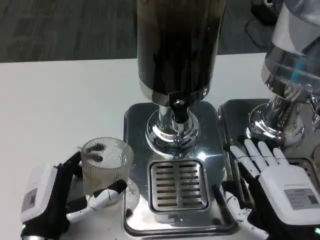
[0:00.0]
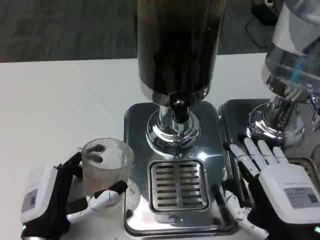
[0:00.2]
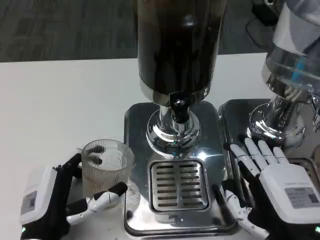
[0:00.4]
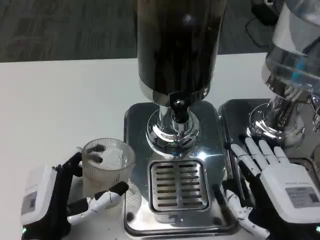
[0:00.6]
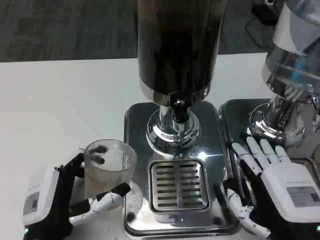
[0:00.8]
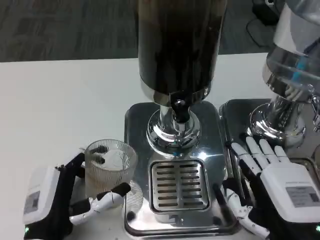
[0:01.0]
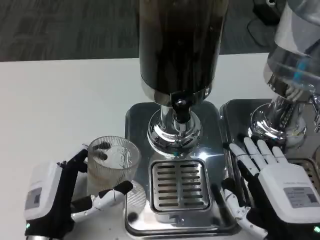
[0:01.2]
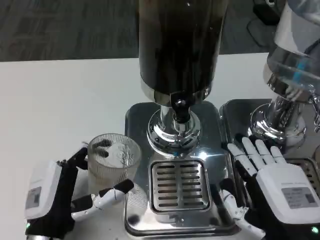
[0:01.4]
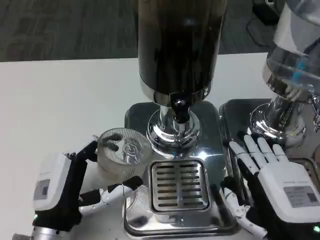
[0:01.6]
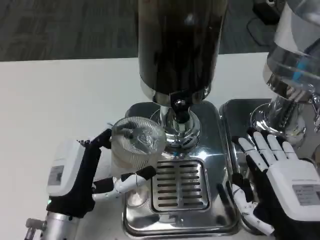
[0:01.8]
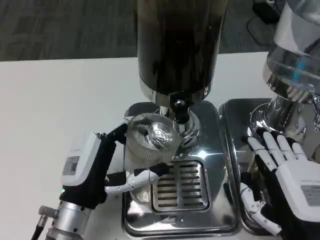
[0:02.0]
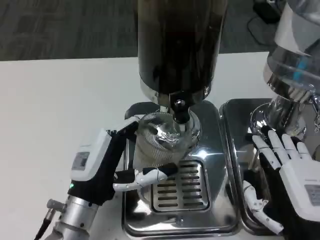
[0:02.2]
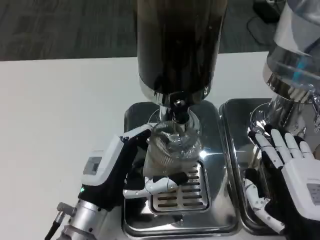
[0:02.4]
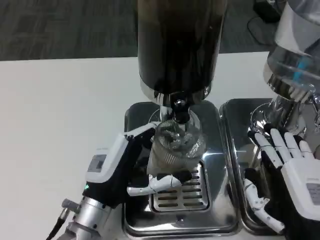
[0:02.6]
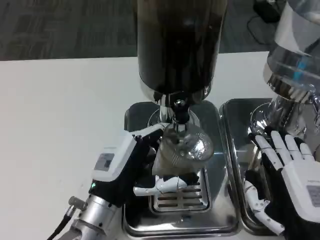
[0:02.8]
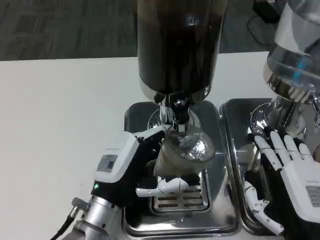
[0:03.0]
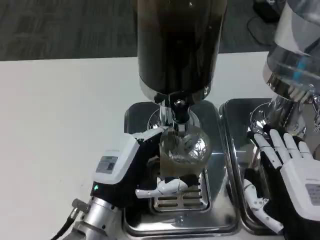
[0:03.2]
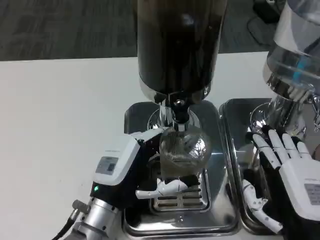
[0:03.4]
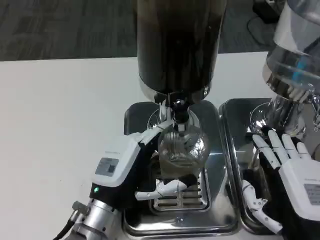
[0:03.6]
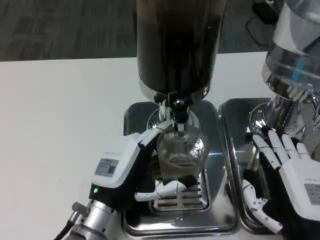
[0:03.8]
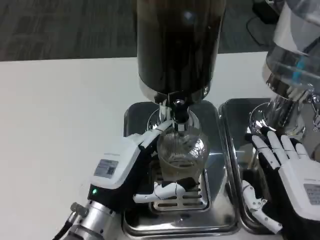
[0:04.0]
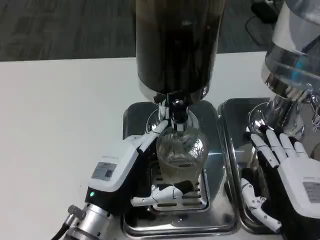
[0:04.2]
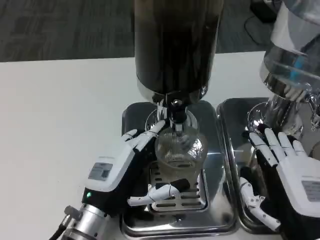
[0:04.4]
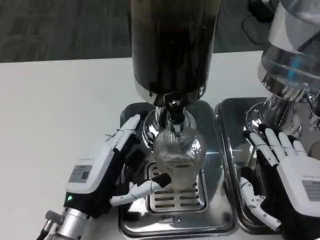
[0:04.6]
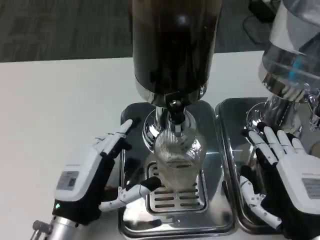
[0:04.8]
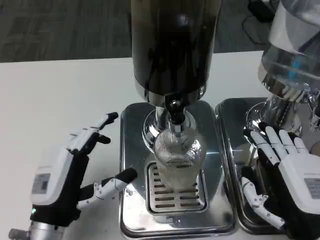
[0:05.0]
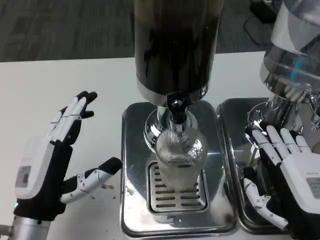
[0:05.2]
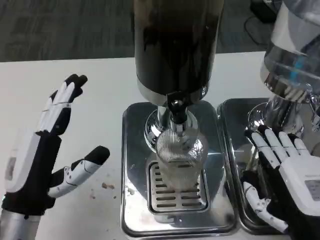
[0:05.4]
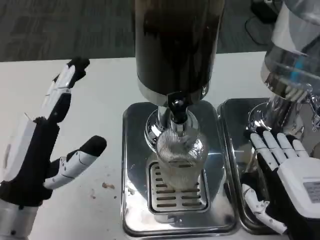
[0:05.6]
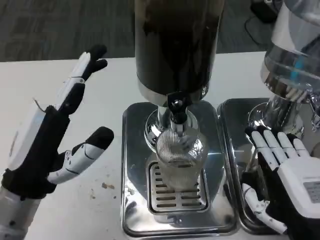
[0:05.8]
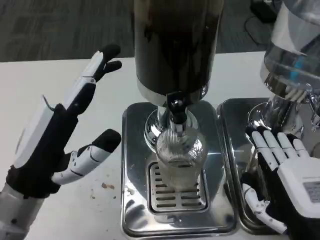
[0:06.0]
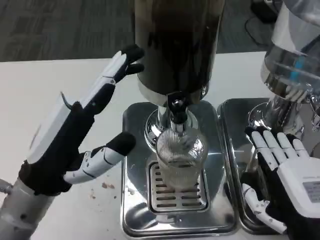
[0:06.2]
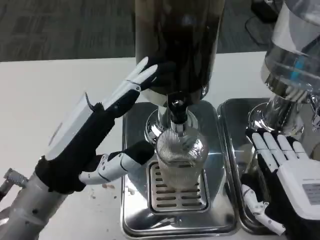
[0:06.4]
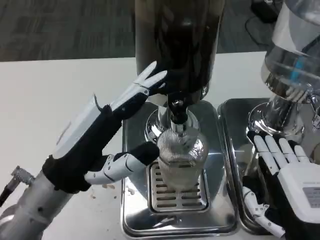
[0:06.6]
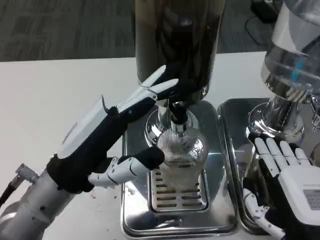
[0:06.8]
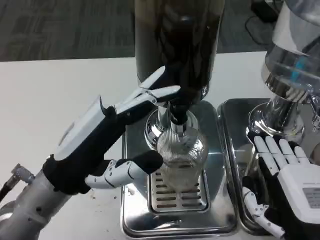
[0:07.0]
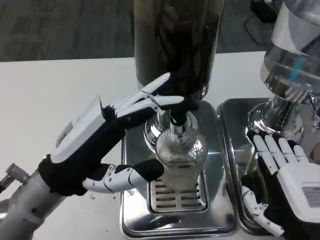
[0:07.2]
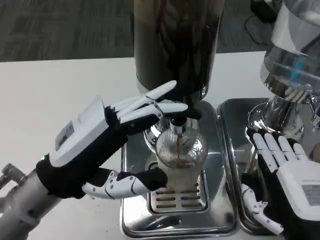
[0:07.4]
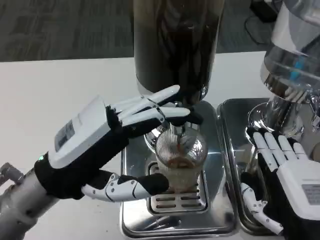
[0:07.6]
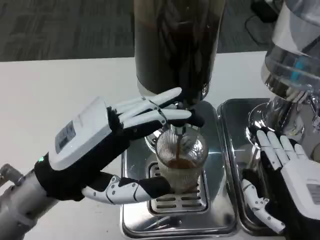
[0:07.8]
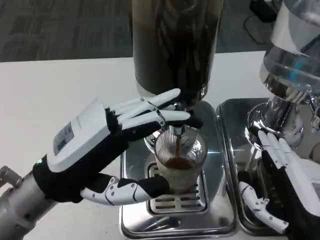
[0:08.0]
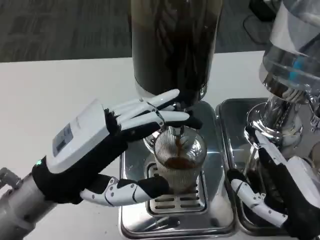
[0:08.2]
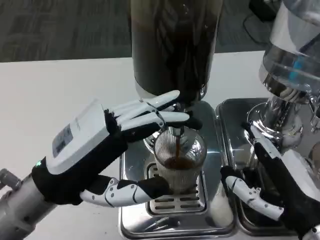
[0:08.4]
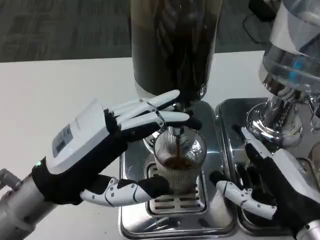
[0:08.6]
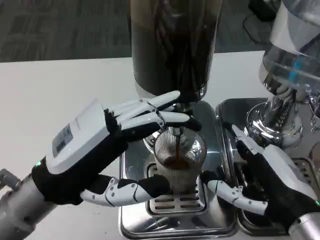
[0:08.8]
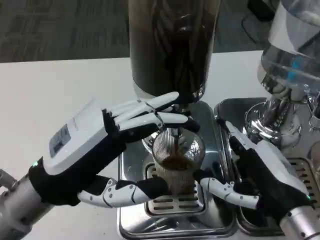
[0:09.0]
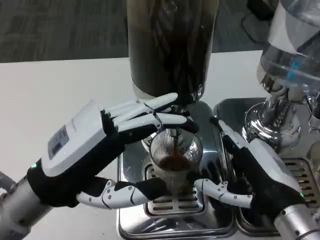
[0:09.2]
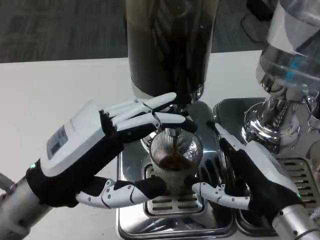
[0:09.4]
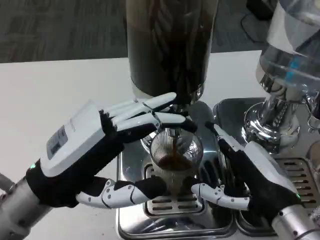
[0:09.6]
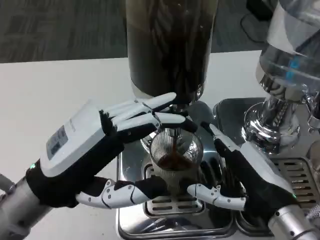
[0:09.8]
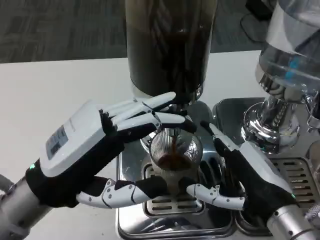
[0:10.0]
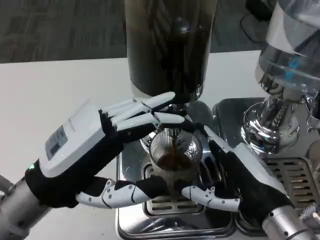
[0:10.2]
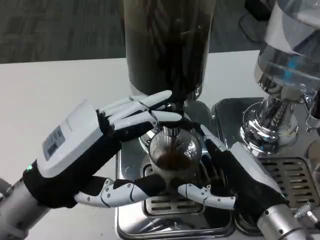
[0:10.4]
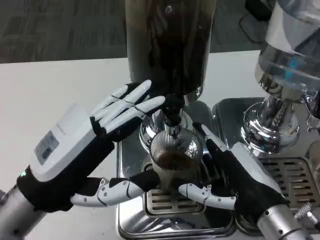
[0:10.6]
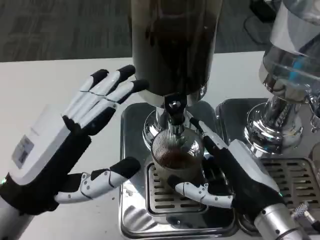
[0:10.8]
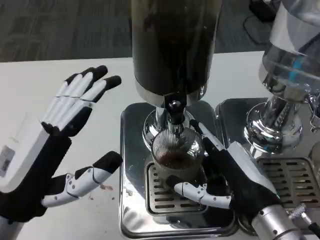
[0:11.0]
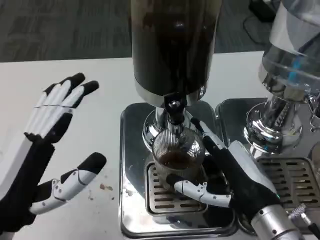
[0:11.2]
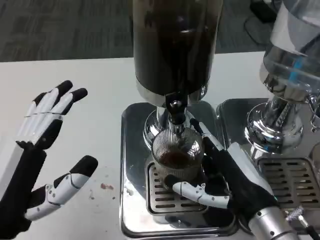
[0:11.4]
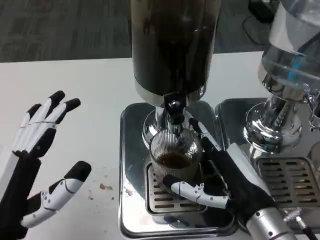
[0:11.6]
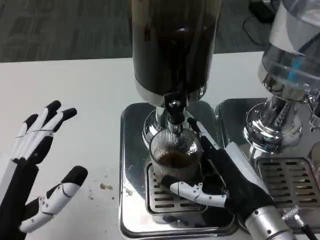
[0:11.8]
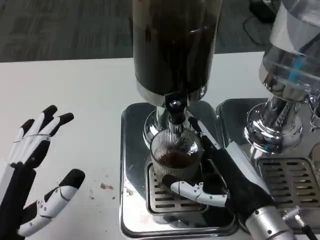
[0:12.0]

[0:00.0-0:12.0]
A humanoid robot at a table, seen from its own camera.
Task of the whole recording: Grasp the cup under the faucet to collect the drink, then remove the cup.
0:00.0 to 0:01.6: The hands make only small movements.
0:01.6 to 0:03.0: The left hand travels to the right by some 5 cm.
0:04.4 to 0:06.0: The left hand shifts approximately 10 cm upward and to the left.
0:07.6 to 0:09.0: The right hand moves some 5 cm.
0:10.4 to 0:12.0: The left hand travels backward and downward by roughly 10 cm.

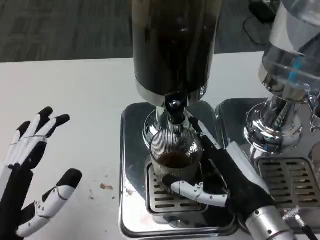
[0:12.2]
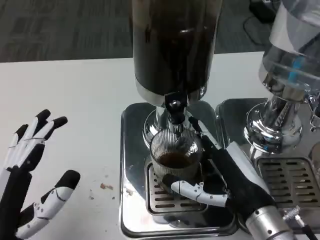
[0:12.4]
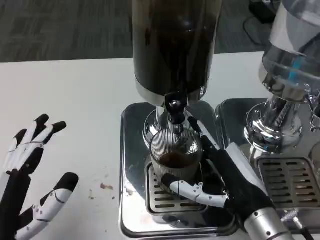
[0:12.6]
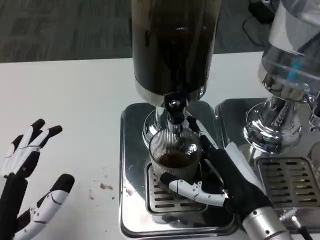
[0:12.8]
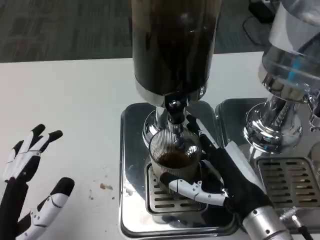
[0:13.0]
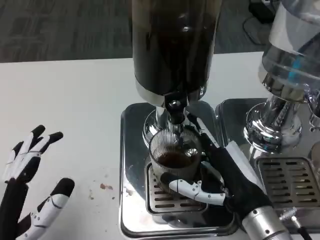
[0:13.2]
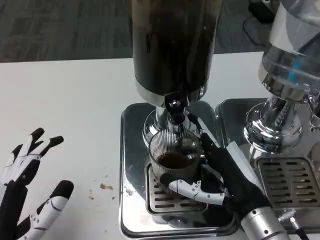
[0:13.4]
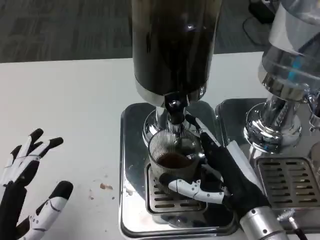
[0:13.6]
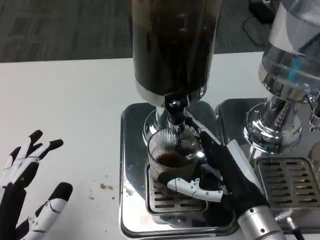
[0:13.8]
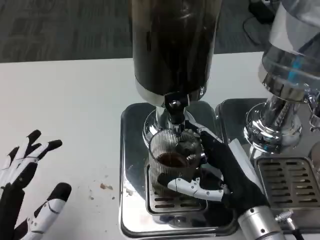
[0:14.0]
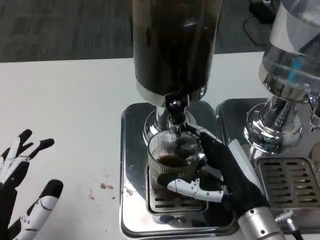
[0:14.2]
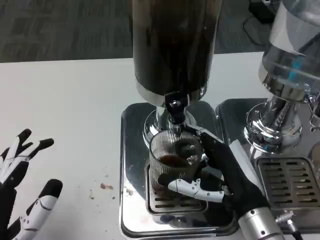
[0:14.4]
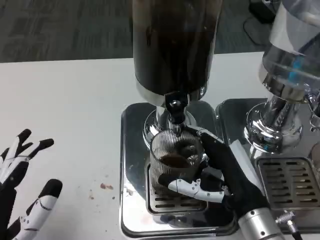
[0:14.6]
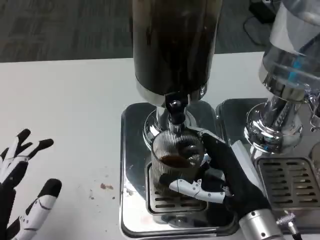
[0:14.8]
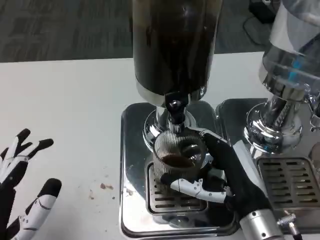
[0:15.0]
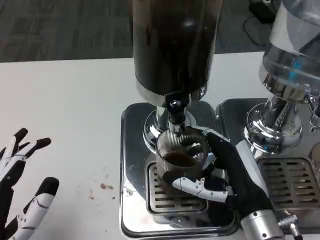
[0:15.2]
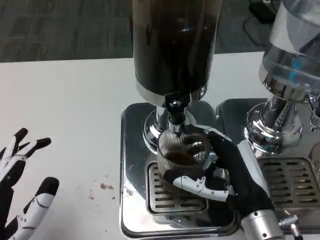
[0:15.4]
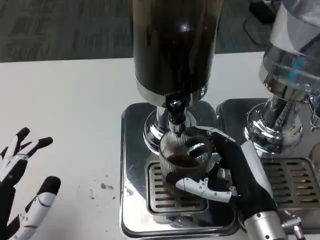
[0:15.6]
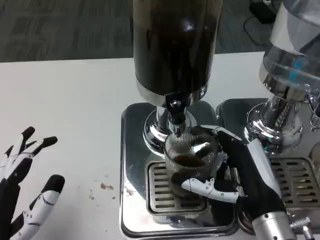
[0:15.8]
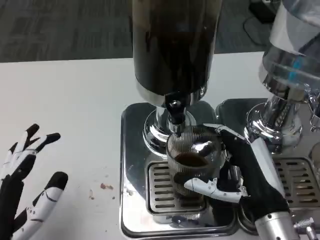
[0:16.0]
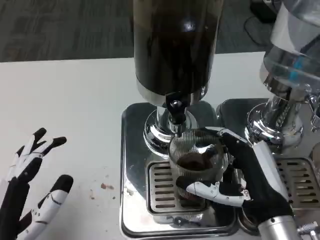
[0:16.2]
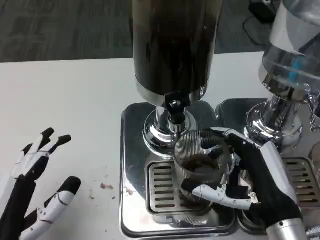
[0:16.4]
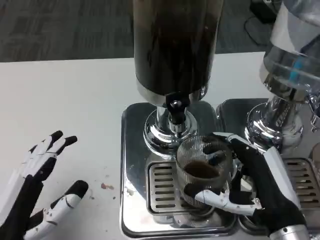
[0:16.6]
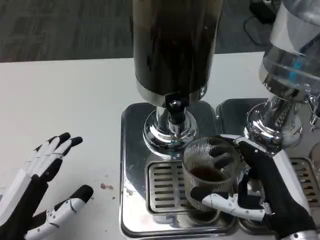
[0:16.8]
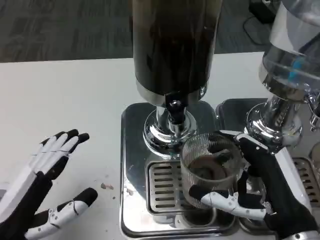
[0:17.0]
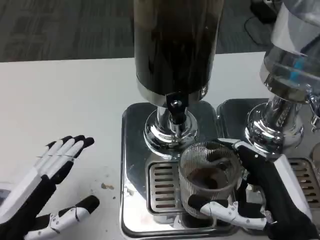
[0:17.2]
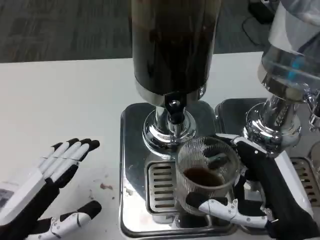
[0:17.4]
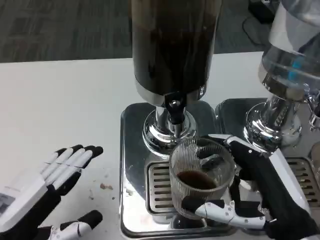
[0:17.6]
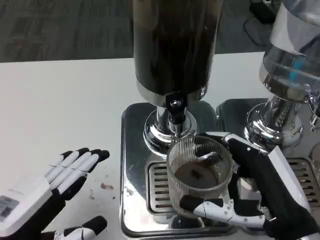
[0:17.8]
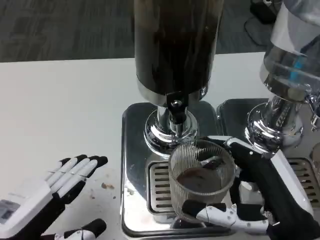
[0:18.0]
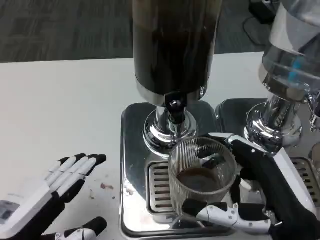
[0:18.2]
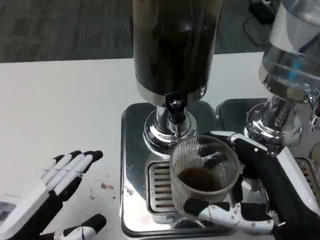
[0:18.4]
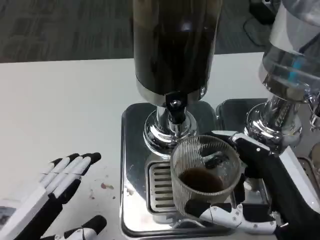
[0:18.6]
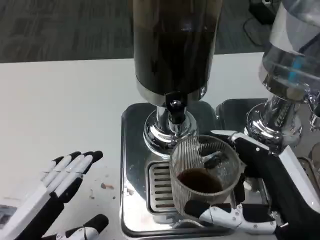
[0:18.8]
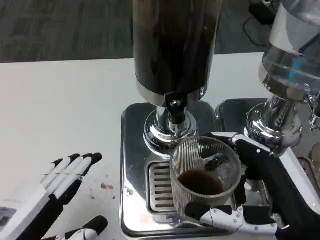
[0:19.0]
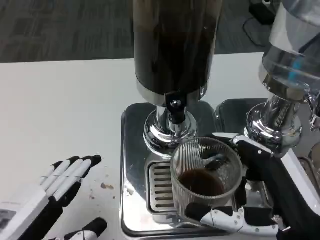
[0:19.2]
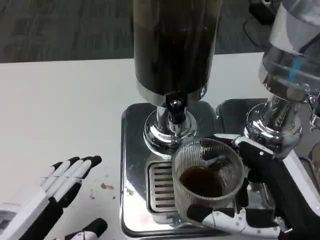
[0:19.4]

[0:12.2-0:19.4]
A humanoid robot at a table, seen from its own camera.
Task of the whole recording: Grasp the cup under the faucet to collect the drink, then remove the cup.
0:12.2 to 0:15.0: The hands make only small movements.
0:18.0 to 0:19.4: The hands move only a little.

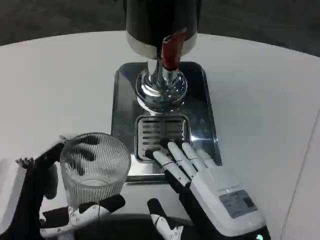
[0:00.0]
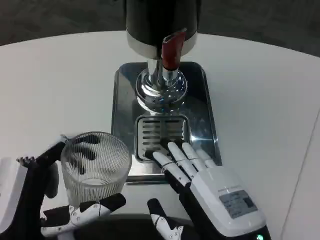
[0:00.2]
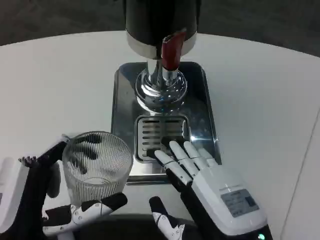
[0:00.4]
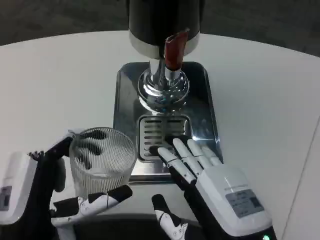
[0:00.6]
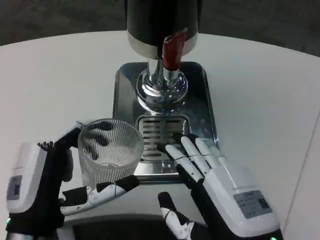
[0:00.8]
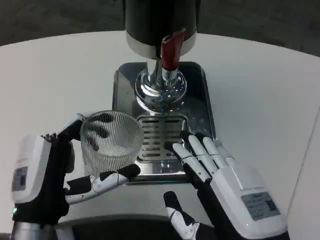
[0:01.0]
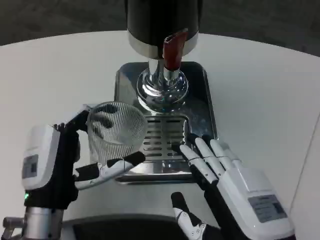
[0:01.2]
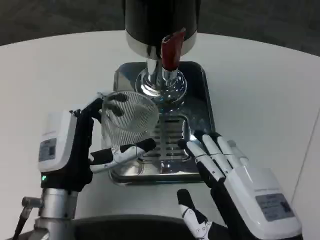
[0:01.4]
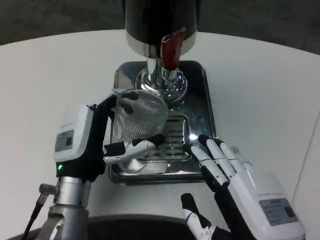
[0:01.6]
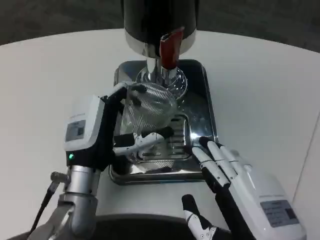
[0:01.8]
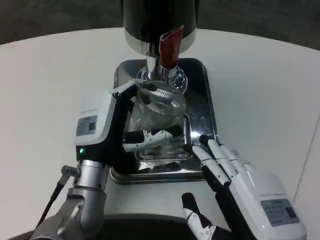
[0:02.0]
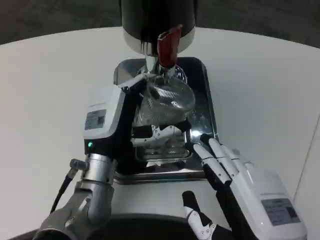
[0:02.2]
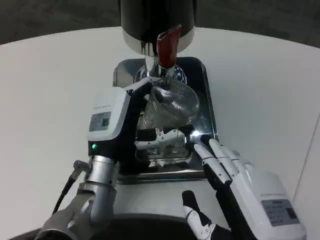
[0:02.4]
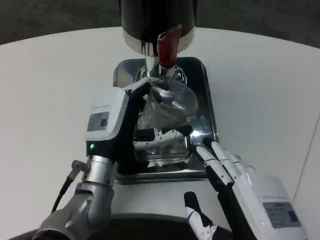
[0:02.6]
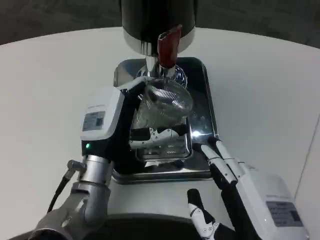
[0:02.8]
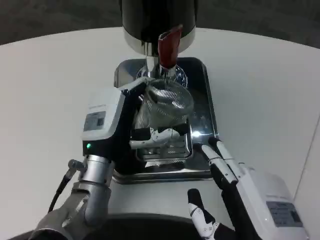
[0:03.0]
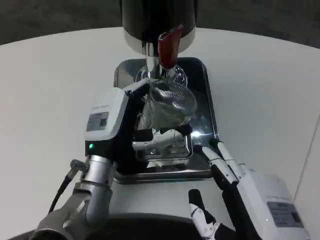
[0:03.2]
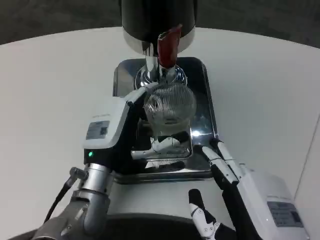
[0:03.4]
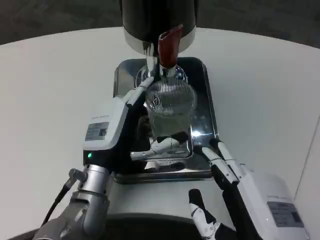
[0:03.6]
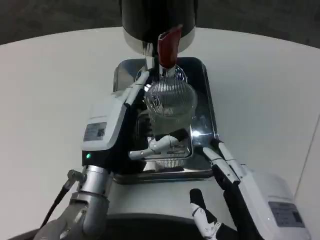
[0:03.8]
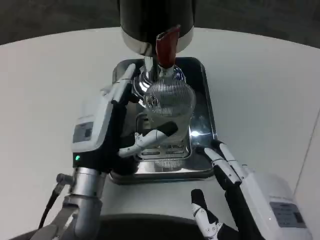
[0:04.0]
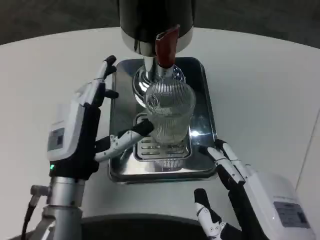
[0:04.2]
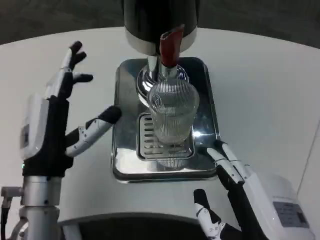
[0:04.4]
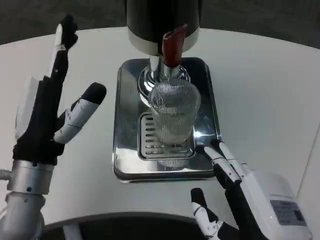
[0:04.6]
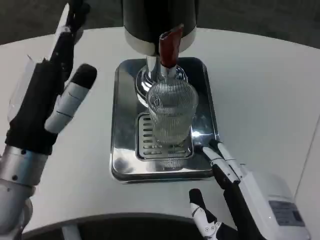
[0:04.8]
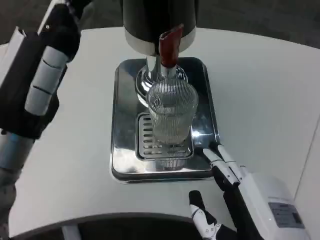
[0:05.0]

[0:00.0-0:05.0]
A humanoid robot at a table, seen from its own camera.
Task of the whole recording: Grasp the cup under the faucet to collect the drink, then remove the cup.
0:00.0 to 0:01.6: The left hand heads forward and to the right, covering about 15 cm.
0:03.4 to 0:05.0: The left hand goes roughly 15 cm upward, to the left and backward.
